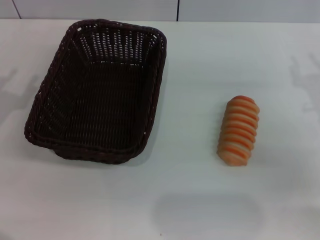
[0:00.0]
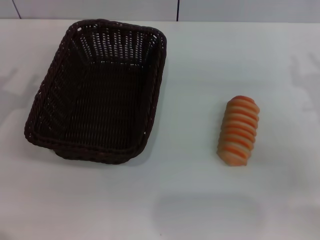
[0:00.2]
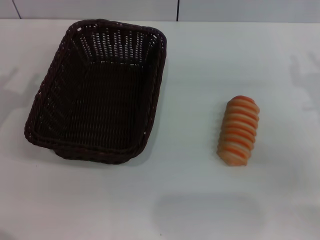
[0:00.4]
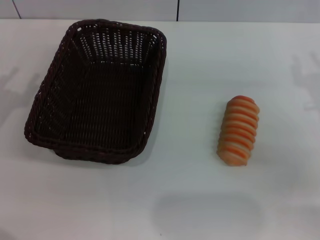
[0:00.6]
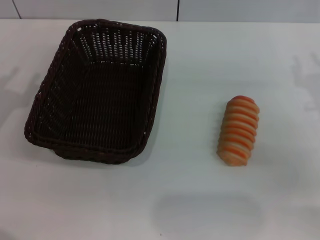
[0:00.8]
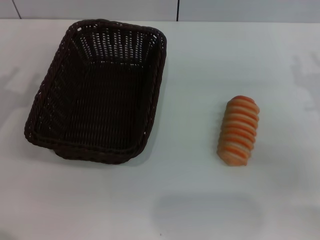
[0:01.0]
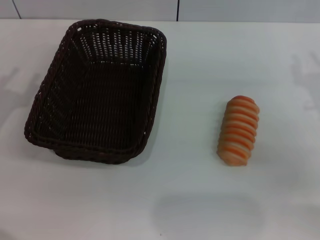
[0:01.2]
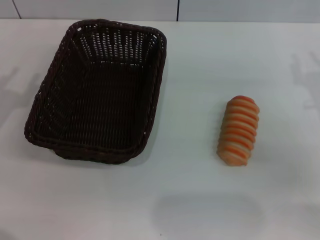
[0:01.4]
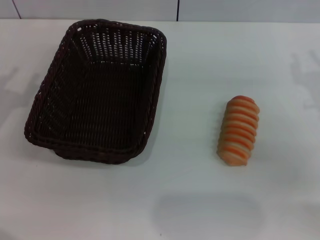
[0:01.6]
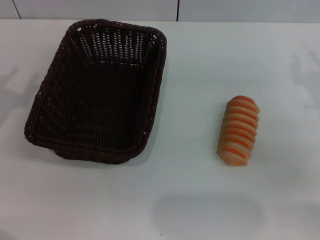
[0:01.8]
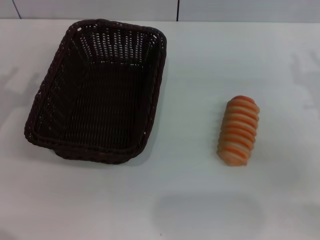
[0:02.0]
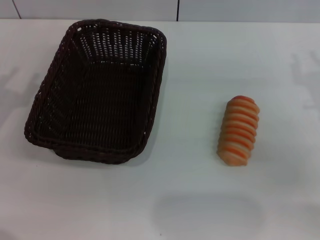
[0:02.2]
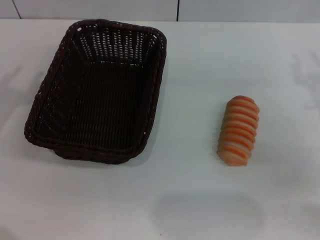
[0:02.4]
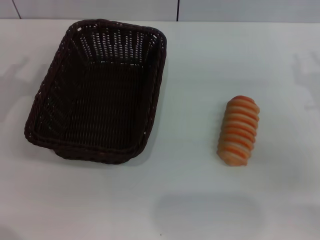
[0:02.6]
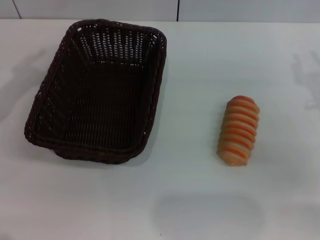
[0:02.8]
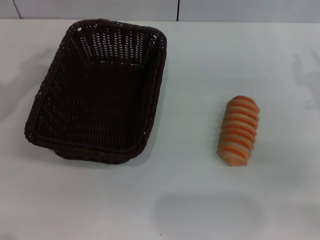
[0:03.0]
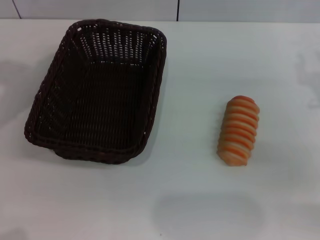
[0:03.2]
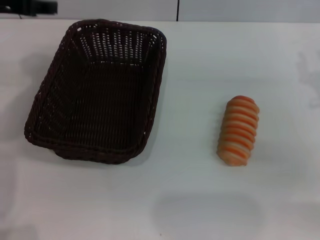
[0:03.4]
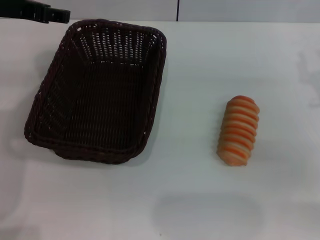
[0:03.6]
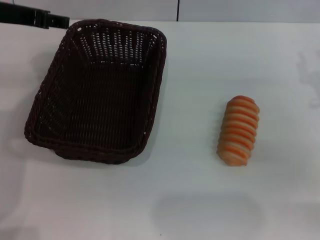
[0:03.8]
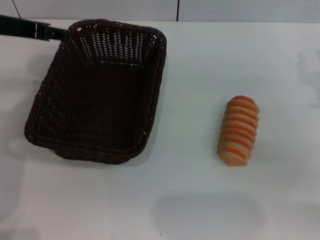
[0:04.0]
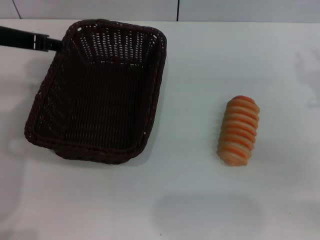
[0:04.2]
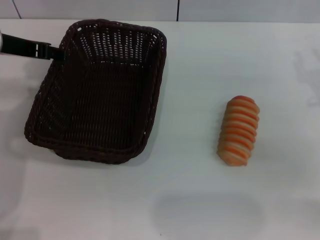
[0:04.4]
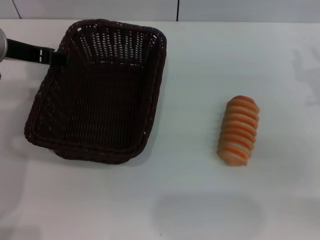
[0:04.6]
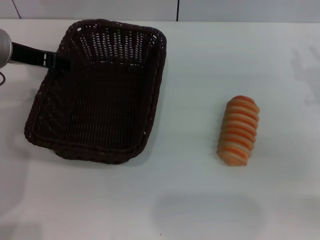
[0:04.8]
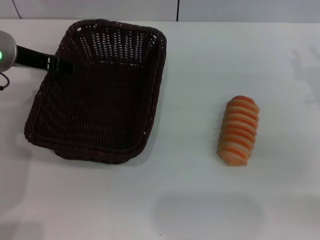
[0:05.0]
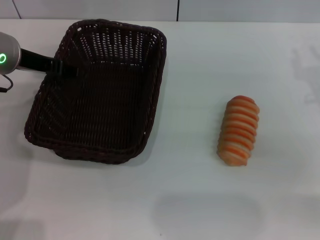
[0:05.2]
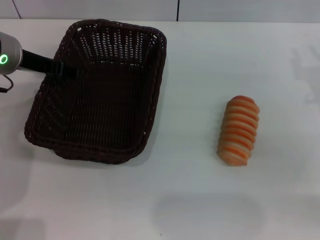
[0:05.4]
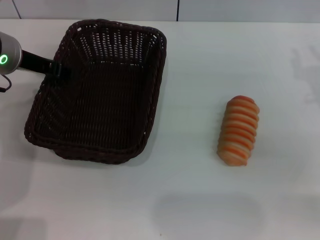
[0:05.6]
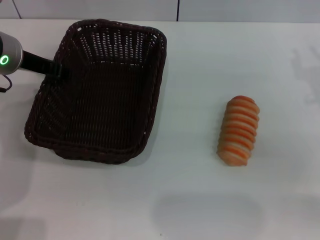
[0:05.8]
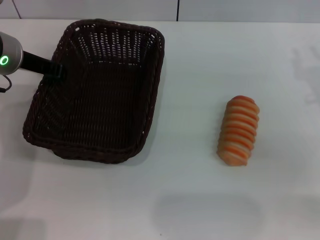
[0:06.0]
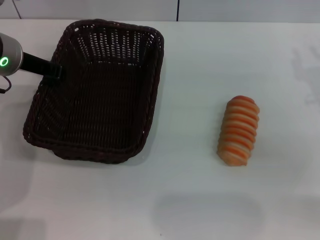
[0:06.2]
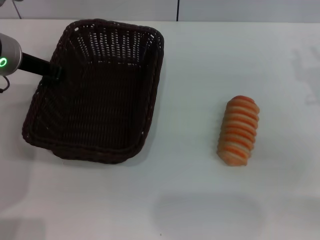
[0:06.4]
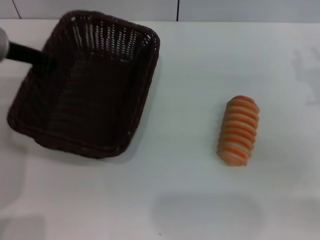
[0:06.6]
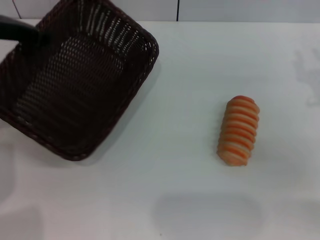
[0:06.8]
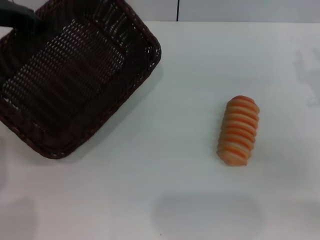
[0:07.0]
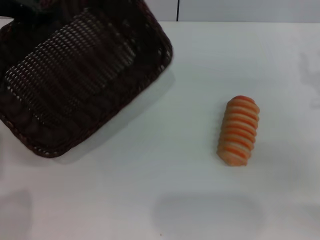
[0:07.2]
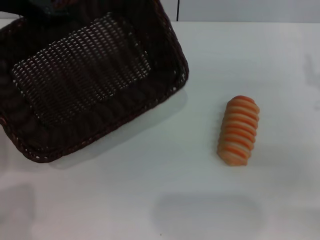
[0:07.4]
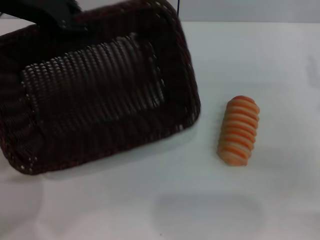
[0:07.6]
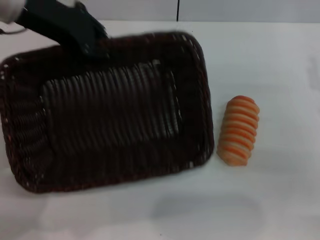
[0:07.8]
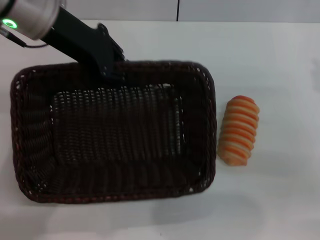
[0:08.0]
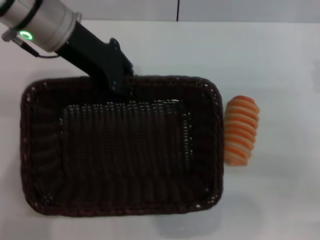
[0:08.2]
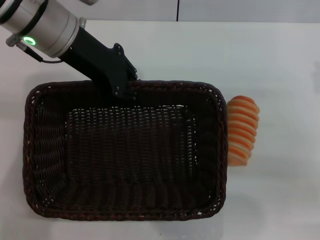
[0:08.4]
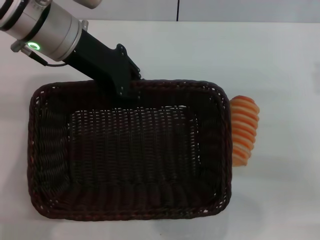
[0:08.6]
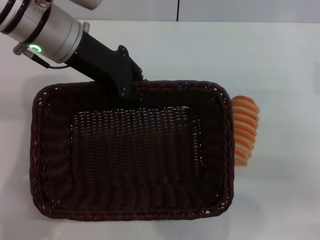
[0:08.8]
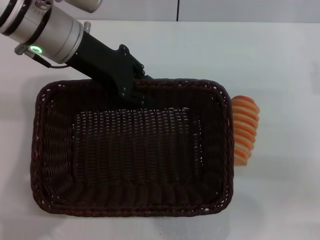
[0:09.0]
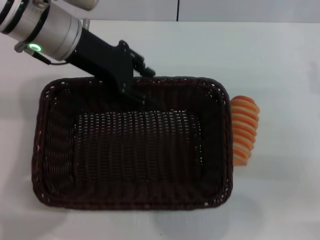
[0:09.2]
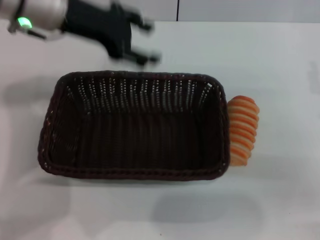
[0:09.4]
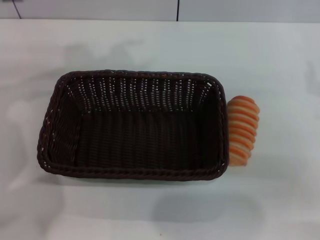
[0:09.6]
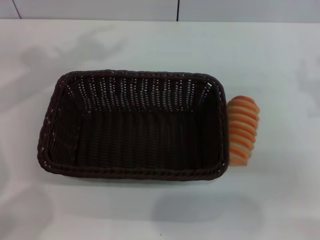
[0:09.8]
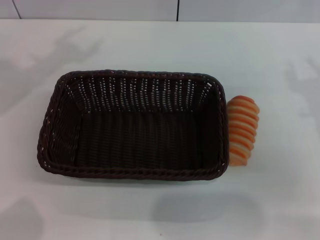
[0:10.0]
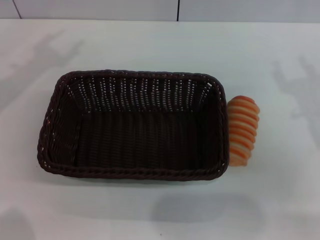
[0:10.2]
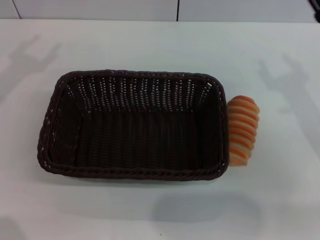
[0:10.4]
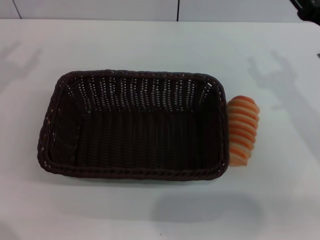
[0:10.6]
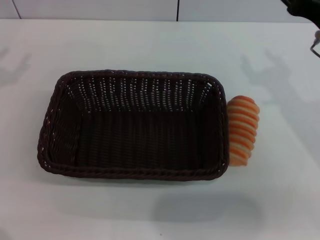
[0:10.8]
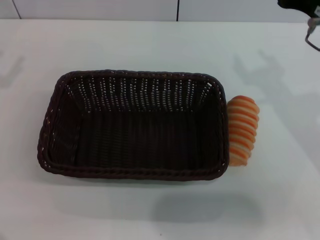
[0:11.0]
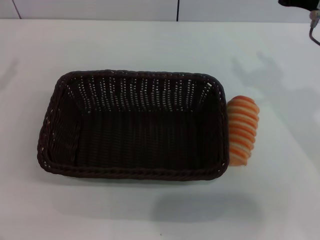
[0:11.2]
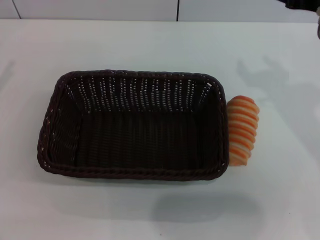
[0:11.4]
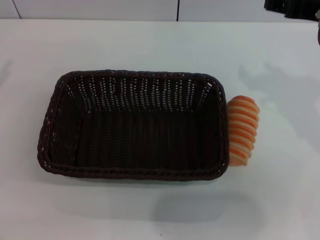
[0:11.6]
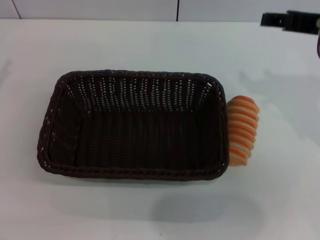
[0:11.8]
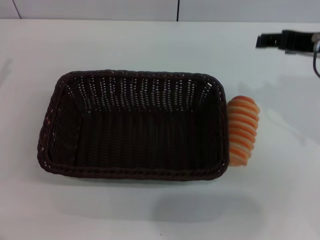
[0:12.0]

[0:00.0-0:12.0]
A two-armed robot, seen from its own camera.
Step, 0.0 to 6.8 s: Pick up the dark basket with the left gripper.
Step, 7.2 to 9.2 s: Place the dark basket in the center of view with the left gripper.
0.0 to 1.6 s: Both grippers stay about where they are.
3.0 to 4.4 s: The left gripper heads to the right, covering some 10 cm.
4.4 to 6.0 s: The left gripper closes its fingers.
6.0 to 7.6 s: The left gripper goes about 10 cm upward, and closes.
7.6 to 9.0 s: The left gripper travels to the right and downward by roughly 10 cm.
9.0 to 10.4 s: The left gripper heads to the left, covering roughly 20 cm, and opens up; the right gripper goes about 5 cm to the left, and opens its fingers.
10.4 to 12.0 s: The right gripper goes some 10 cm upward.

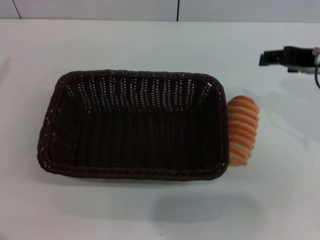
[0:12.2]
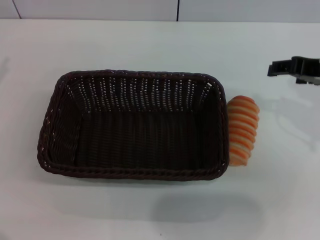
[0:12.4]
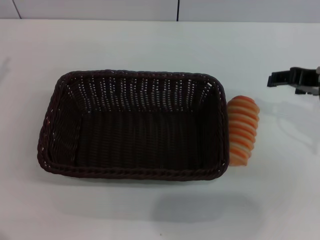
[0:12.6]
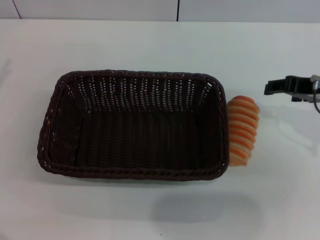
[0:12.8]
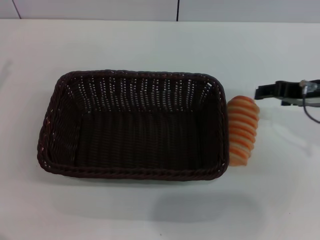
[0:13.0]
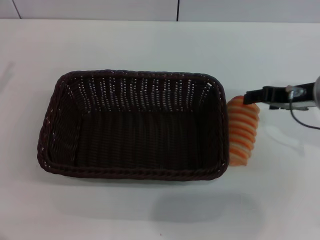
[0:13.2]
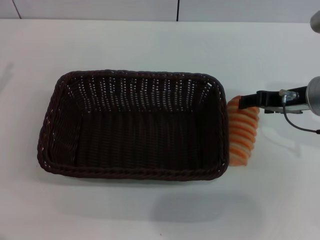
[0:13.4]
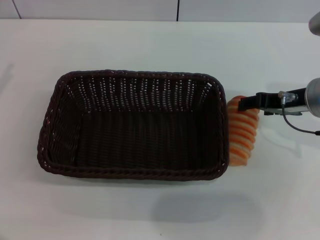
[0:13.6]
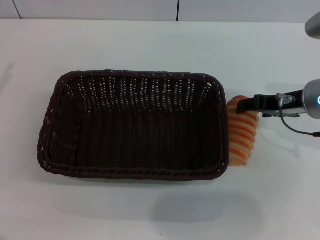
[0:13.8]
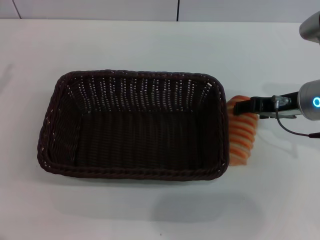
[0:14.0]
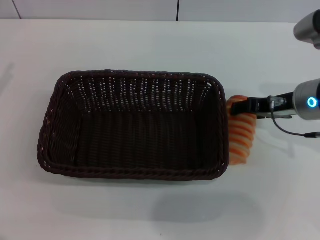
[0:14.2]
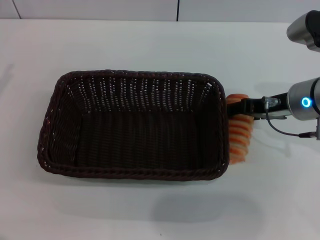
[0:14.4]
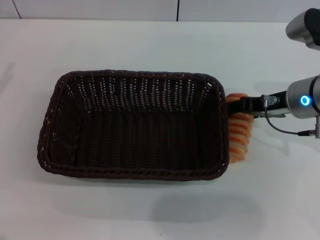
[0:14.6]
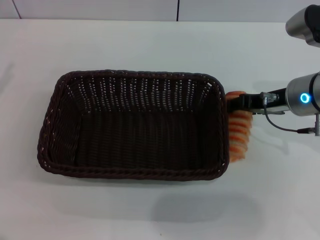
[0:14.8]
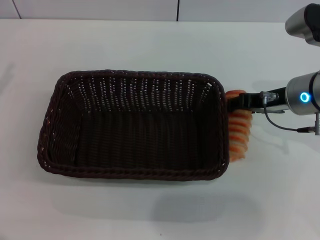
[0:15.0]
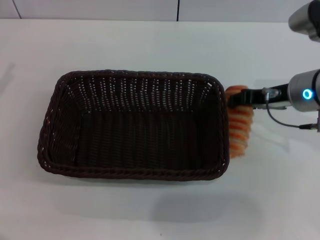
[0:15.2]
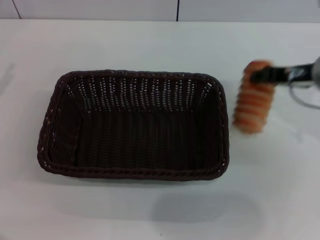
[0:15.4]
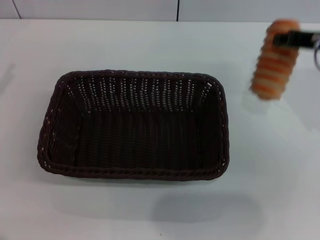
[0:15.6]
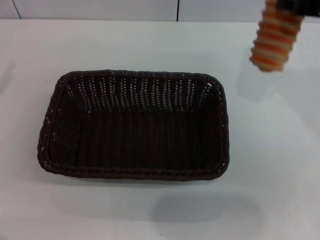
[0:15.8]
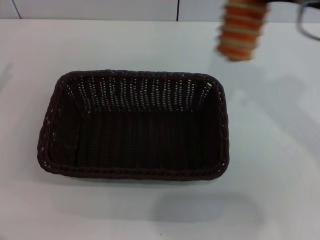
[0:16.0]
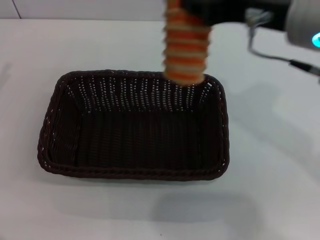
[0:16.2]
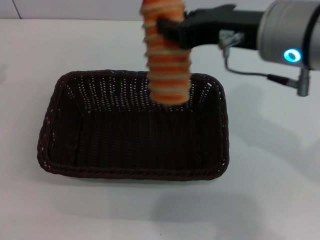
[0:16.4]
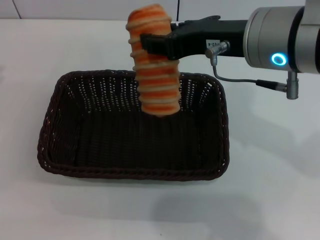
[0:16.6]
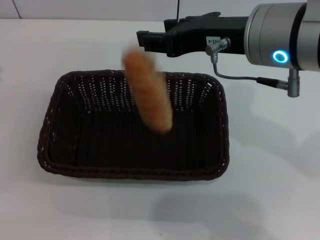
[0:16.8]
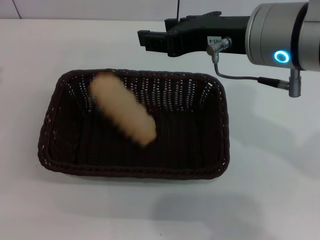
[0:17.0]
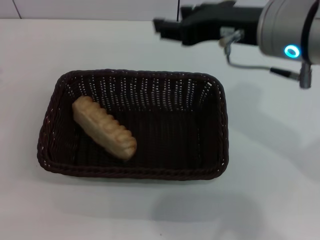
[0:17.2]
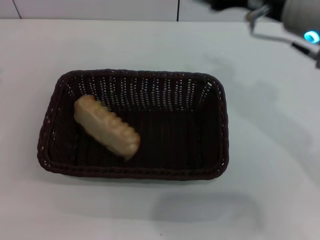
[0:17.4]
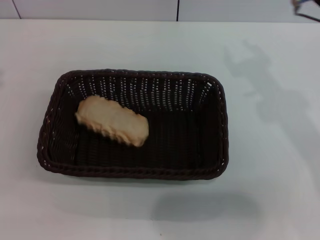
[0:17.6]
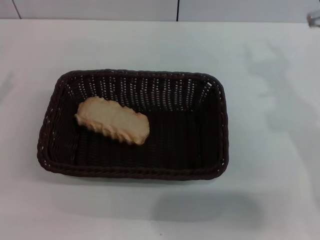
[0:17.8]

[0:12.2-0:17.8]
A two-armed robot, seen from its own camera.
Step, 12.2 to 15.4 s: Pick up the long bread with the right gripper.
Step, 15.8 to 17.0 s: Place the long bread into the dark basket with the right gripper.
12.2 to 13.6 s: The right gripper goes some 10 cm downward.
13.6 to 15.0 s: There are only small adjustments of the grippers.
15.0 to 16.4 s: The right gripper shifts about 15 cm upward, to the left and backward, and closes up.
16.4 to 17.8 s: The right gripper shifts some 10 cm to the right and downward, and opens.

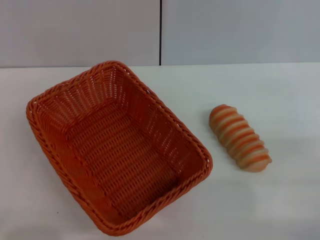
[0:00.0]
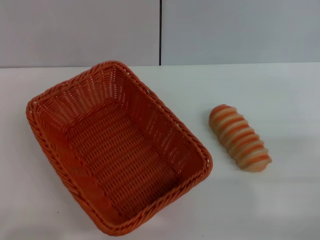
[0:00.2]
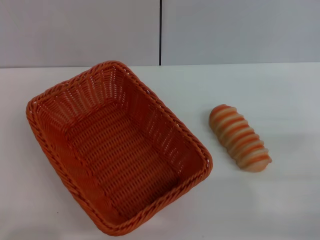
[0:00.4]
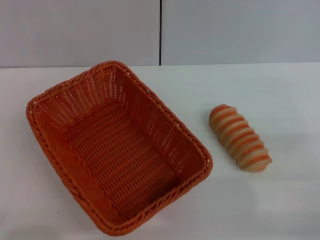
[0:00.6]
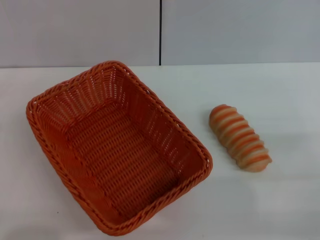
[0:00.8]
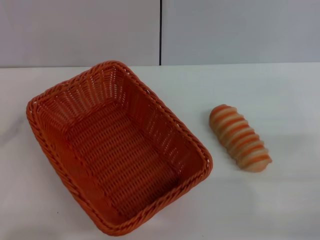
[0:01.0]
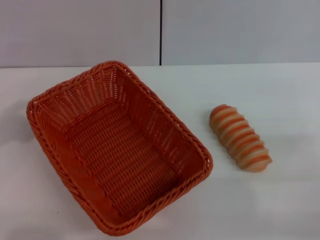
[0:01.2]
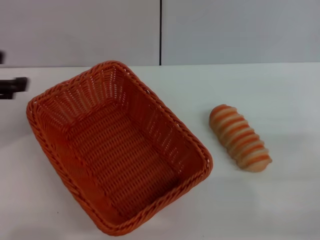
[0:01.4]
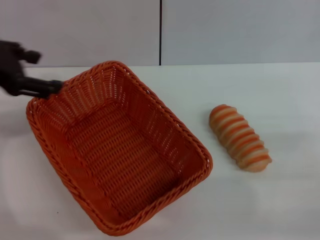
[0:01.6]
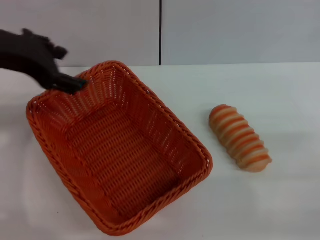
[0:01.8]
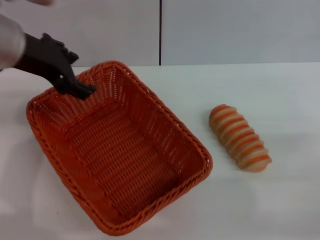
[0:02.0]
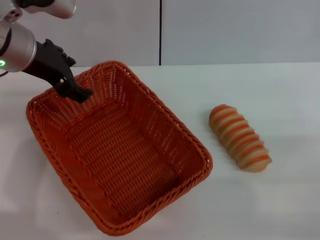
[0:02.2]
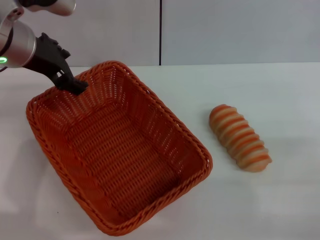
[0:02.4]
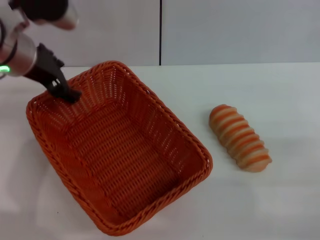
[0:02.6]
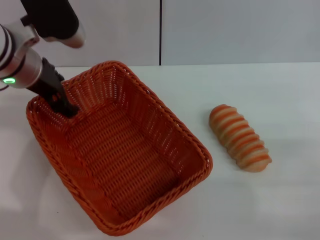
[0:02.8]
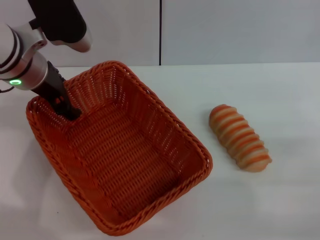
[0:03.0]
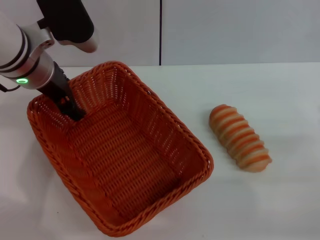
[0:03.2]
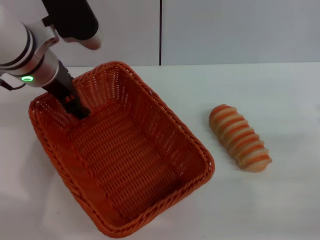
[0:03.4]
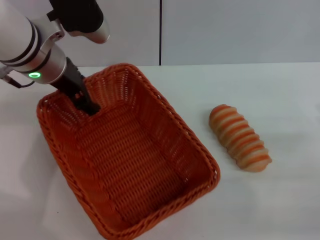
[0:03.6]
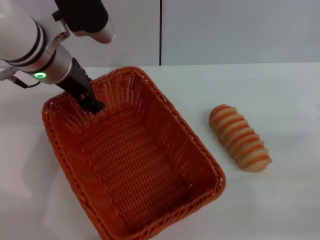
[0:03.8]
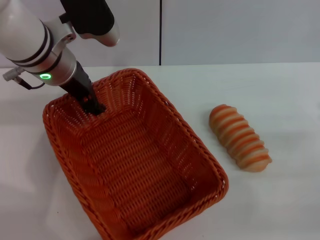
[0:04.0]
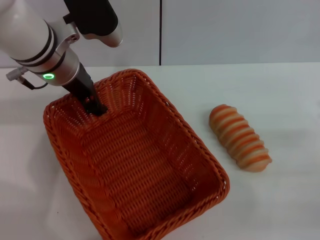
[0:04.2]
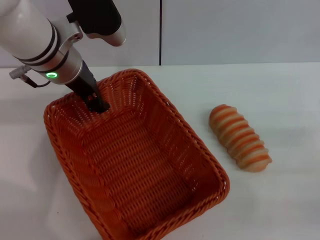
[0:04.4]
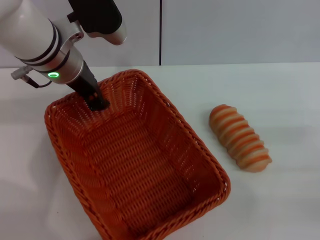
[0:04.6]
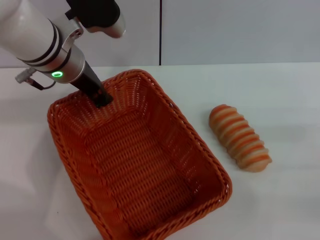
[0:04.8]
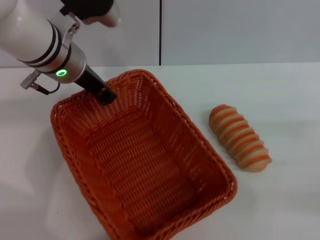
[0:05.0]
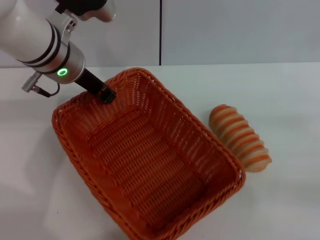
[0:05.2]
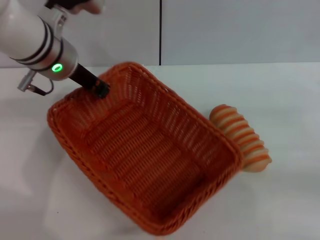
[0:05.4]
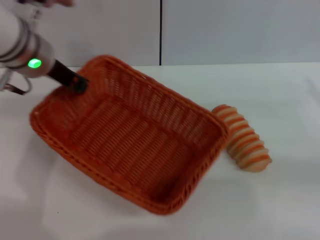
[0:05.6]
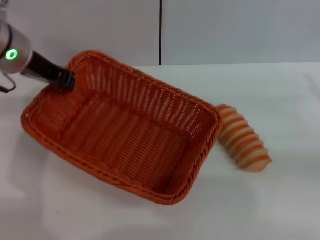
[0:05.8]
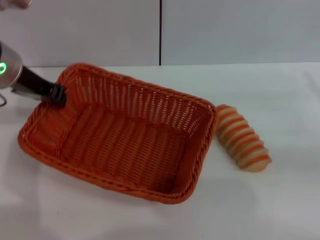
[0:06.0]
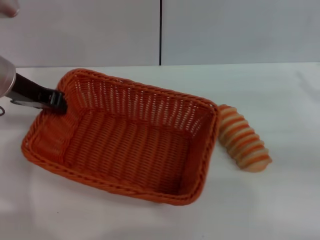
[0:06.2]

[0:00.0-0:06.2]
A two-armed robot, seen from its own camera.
Step, 0.0 to 5.6 s: Pick up the light basket with the left gripper.
0.0 to 1.6 s: The left gripper travels upward, forward and to the right by about 30 cm.
1.6 to 3.2 s: The left gripper moves to the right, downward and forward, roughly 15 cm.
3.2 to 4.6 s: The left gripper closes.
4.6 to 6.2 s: The right gripper travels forward by roughly 10 cm. Meanwhile the left gripper moves to the left, some 10 cm, and closes its fingers.
